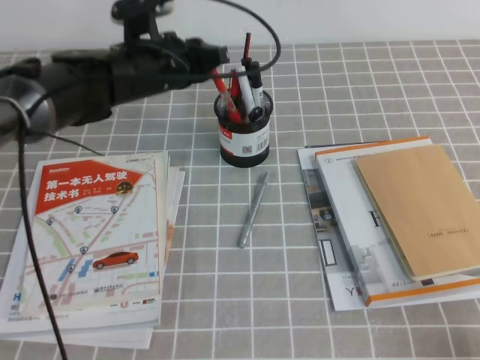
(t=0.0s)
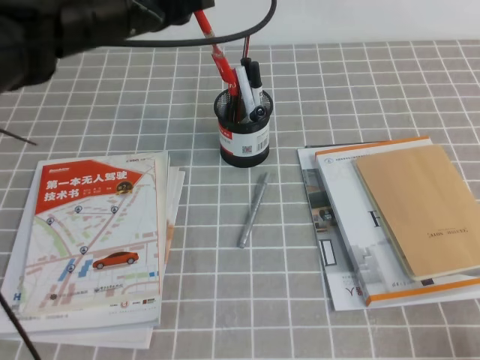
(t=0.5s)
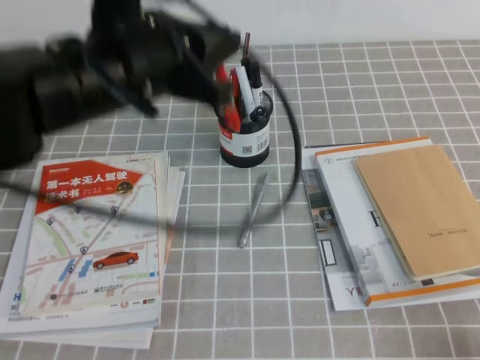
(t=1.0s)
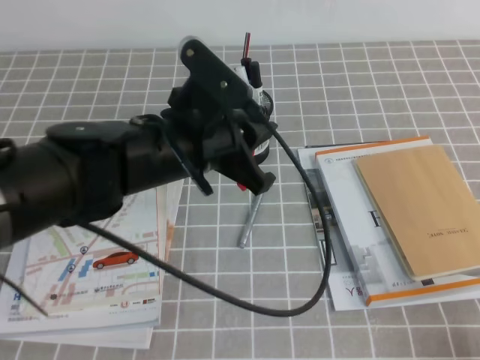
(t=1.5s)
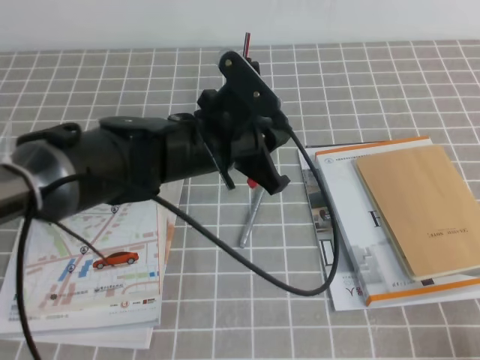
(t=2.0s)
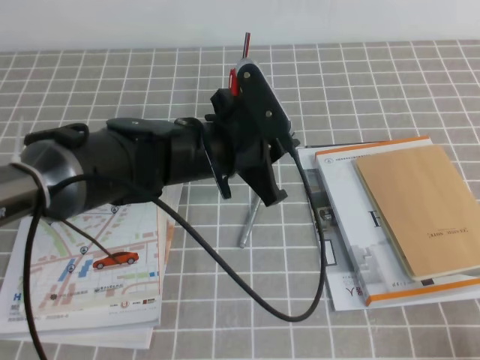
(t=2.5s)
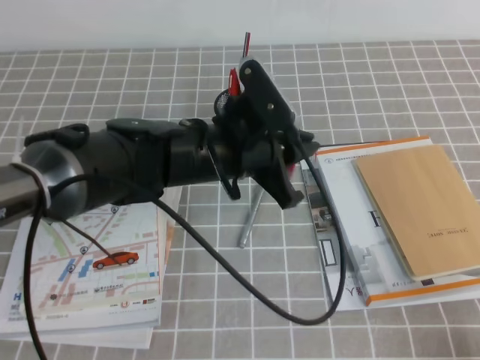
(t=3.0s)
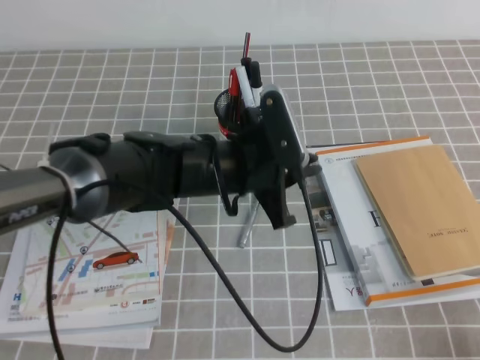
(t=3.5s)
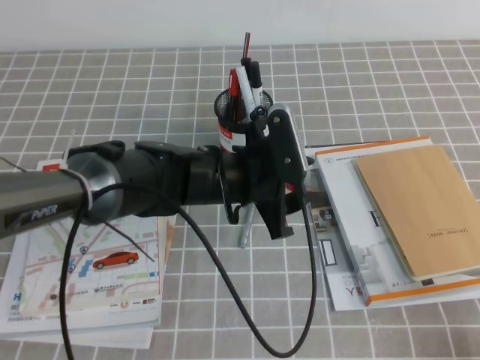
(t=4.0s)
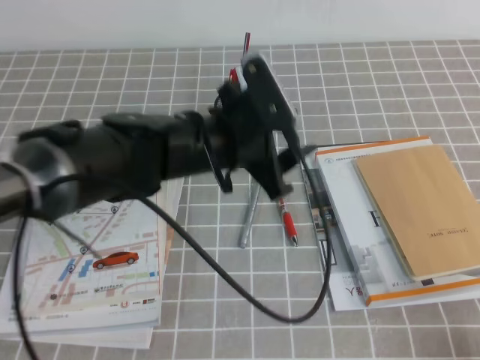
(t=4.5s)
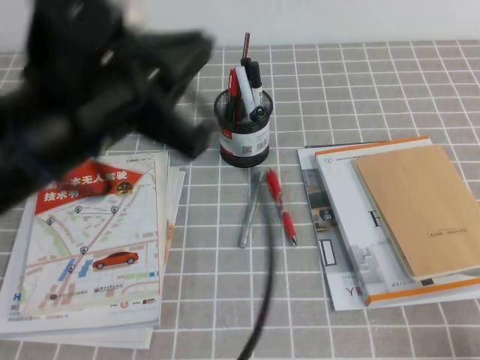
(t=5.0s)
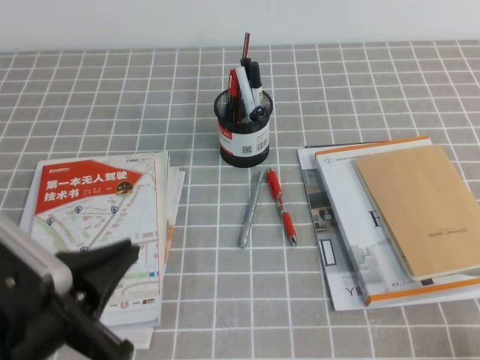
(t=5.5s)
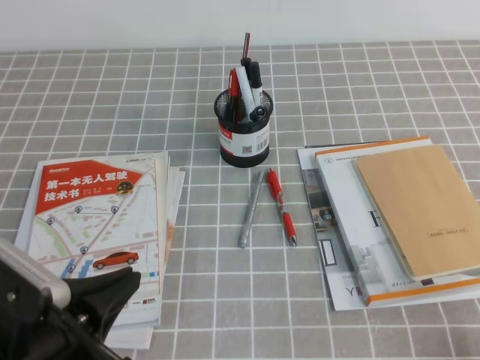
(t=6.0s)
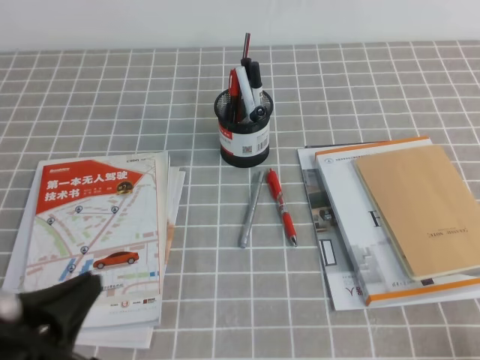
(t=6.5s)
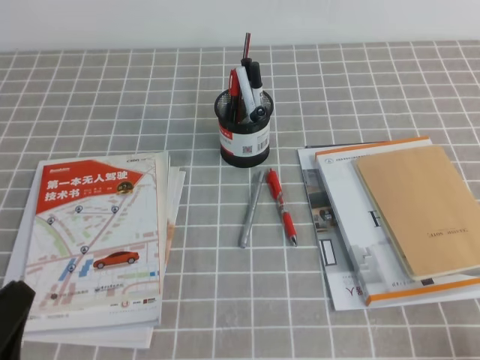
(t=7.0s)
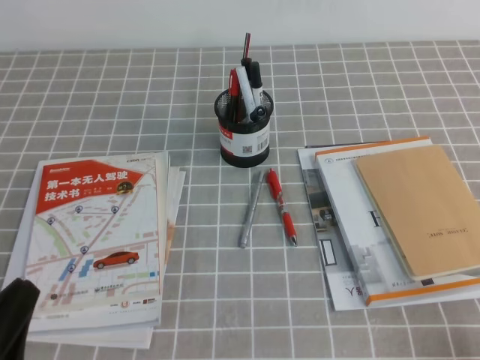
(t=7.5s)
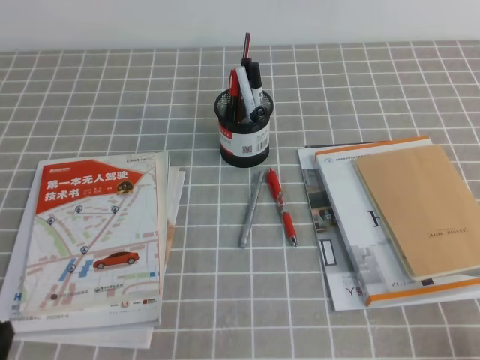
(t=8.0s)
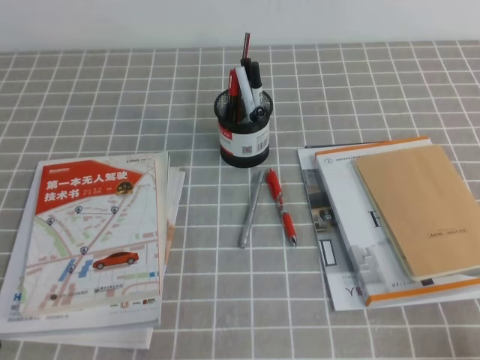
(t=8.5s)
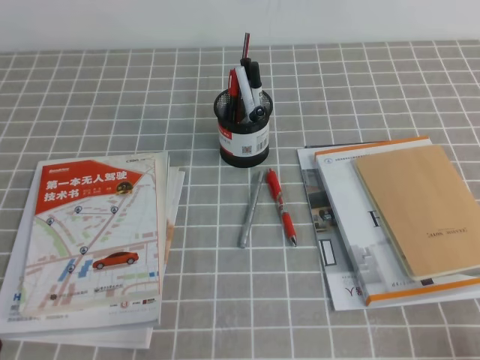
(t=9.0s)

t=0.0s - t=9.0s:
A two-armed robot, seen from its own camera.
Step, t=0.0s - t=9.0s: Pick up the pen from the pen holder.
t=0.0s - t=2.0s: The left gripper goes roughly 15 cm backward and to the right.
t=2.0s - t=4.5s: The left gripper opens its fingers.
t=4.5s - t=7.0s: The left gripper moves backward and to the left, roughly 30 cm, and closes its fingers.
